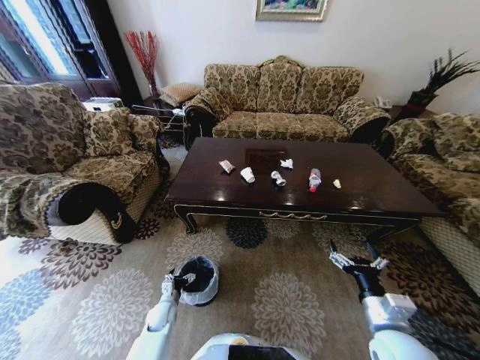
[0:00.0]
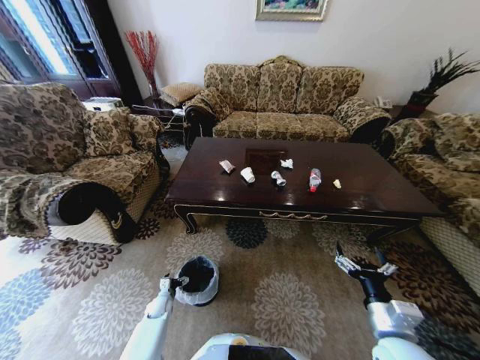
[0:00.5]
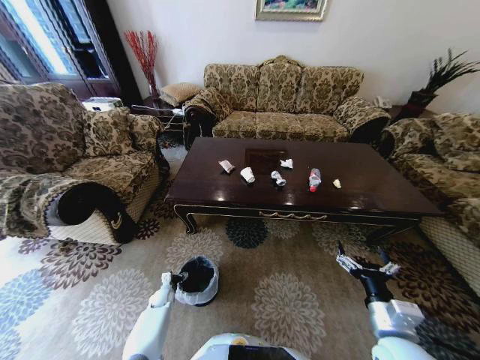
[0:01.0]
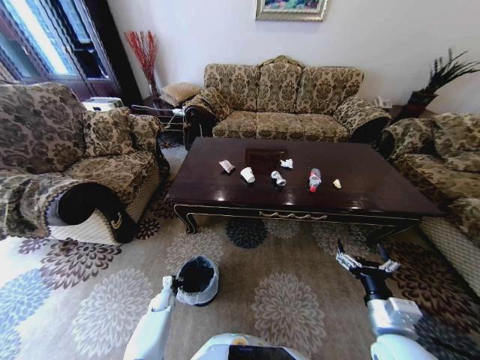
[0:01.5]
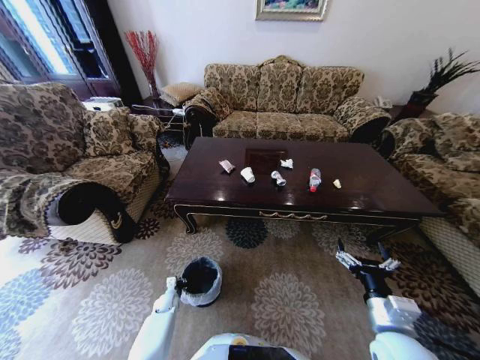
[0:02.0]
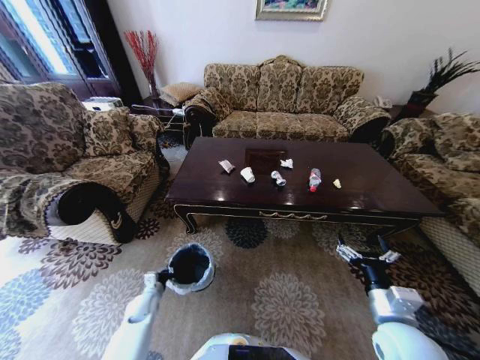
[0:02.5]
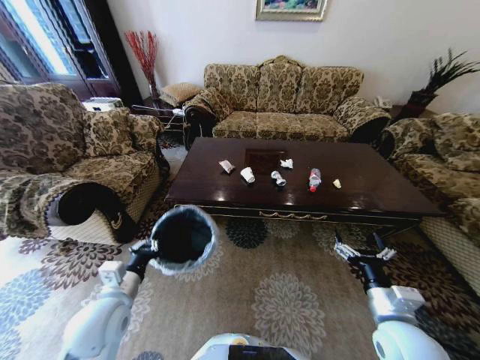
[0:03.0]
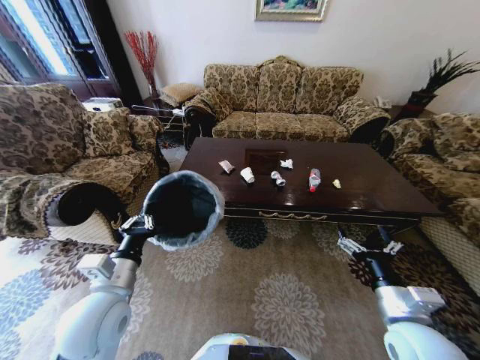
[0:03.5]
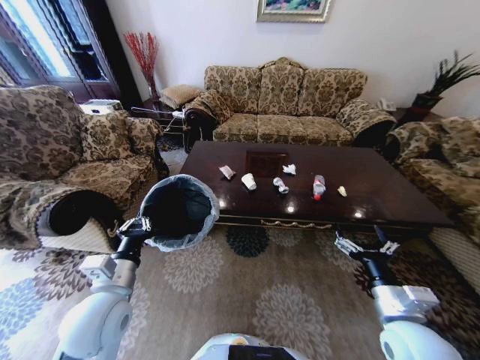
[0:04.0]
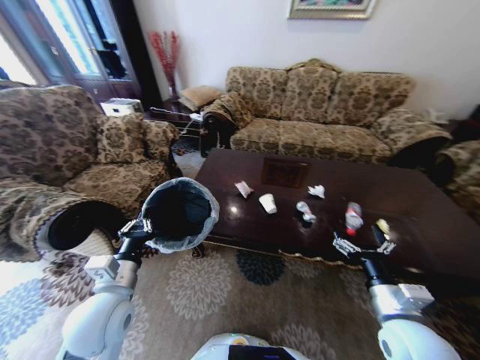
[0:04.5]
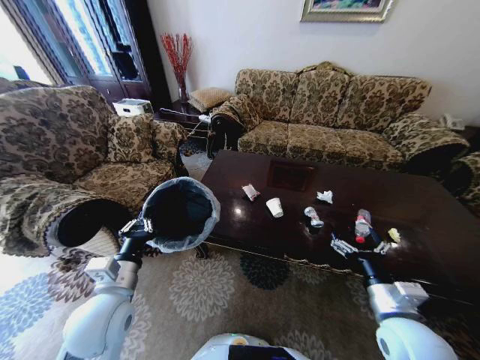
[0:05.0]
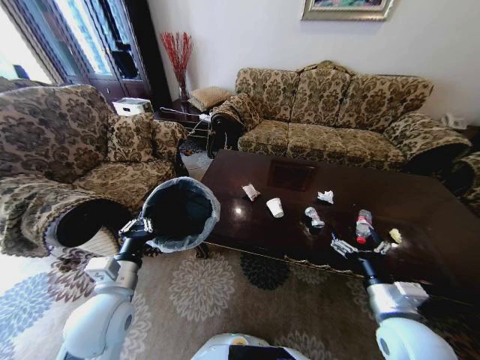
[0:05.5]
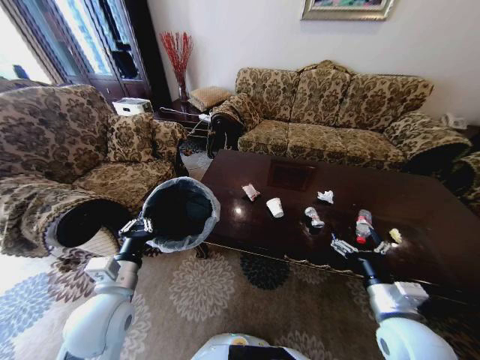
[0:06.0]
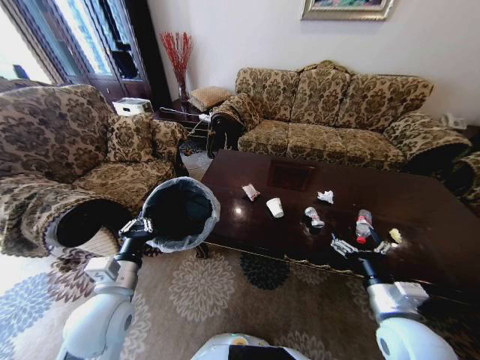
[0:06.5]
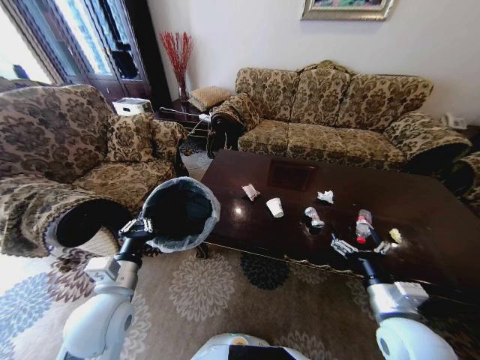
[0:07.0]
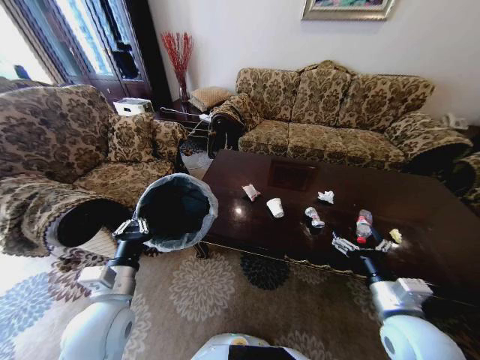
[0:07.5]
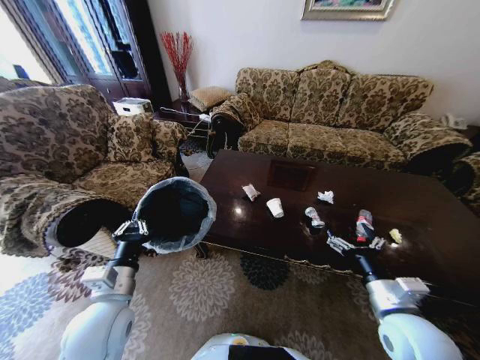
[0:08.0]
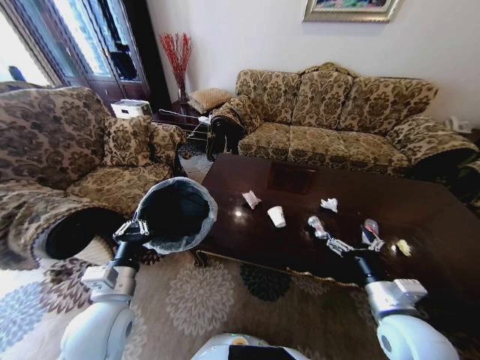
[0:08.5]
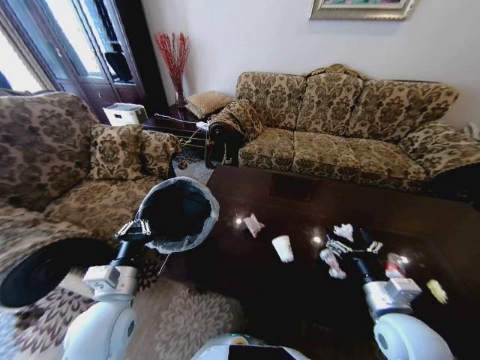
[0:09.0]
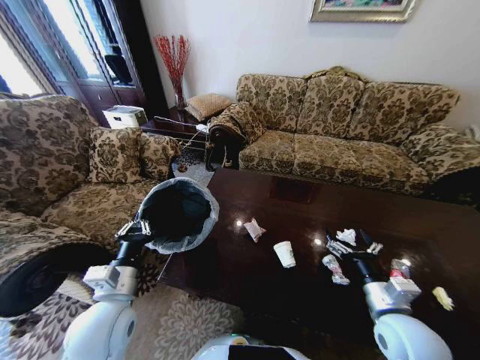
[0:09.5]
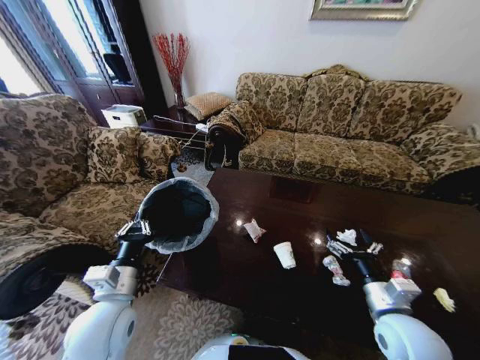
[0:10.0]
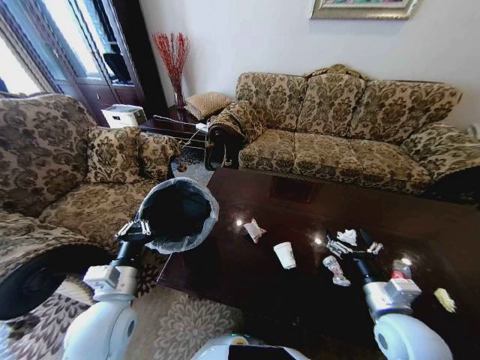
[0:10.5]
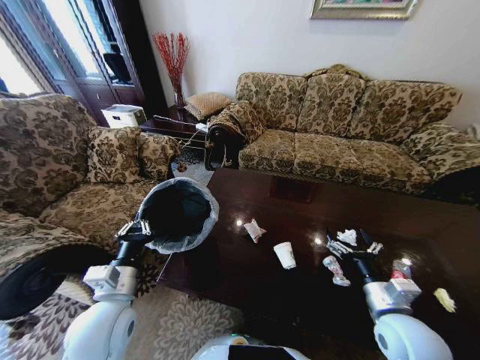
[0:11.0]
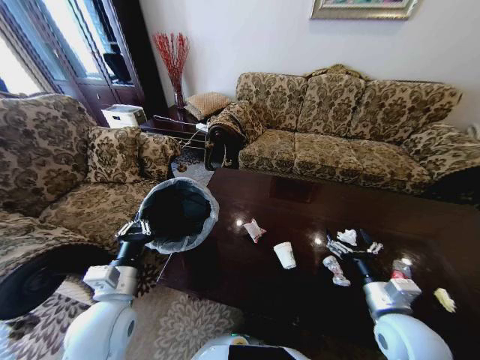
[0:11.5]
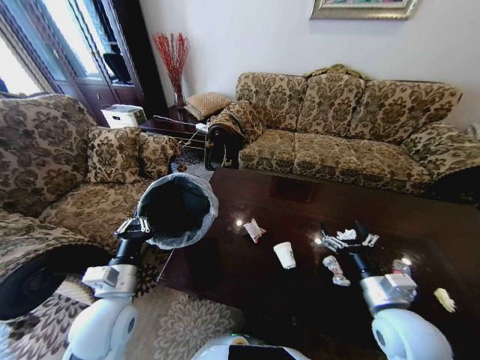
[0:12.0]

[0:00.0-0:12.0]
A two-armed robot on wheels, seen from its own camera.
Task of the whole recording: Move to the front of the table and place the trash on the table into the trash bin.
0:00.0 to 0:02.0: The left gripper goes about 5 cm downward, and closes.
0:02.0 to 0:04.0: The left gripper shifts approximately 40 cm upward.
0:06.0 to 0:08.0: There are only small adjustments of the grippers.
0:10.0 to 0:12.0: There are only small adjustments of the grippers.

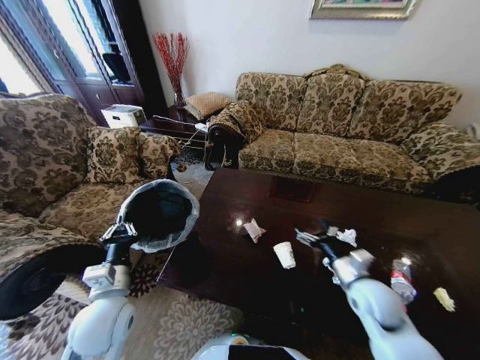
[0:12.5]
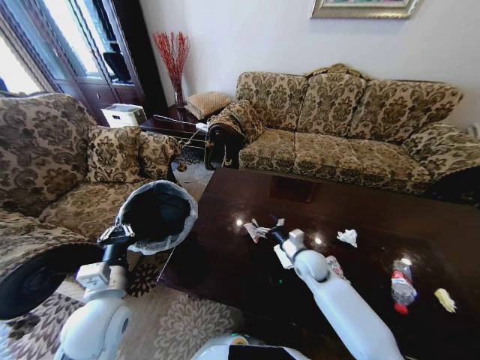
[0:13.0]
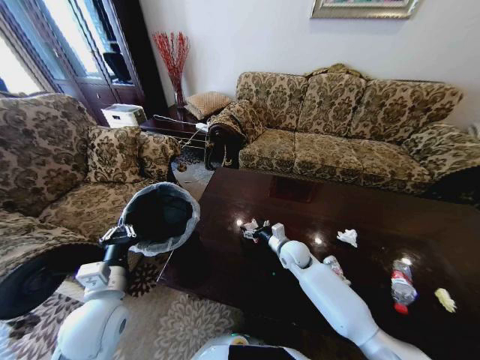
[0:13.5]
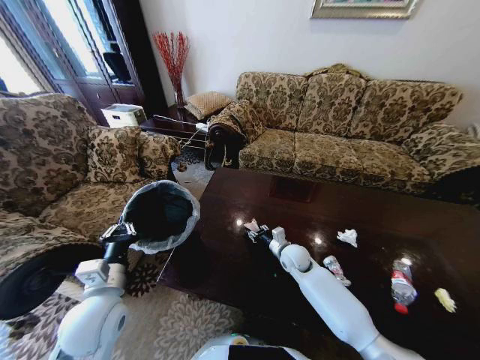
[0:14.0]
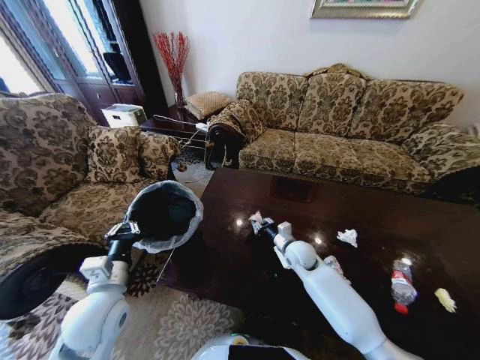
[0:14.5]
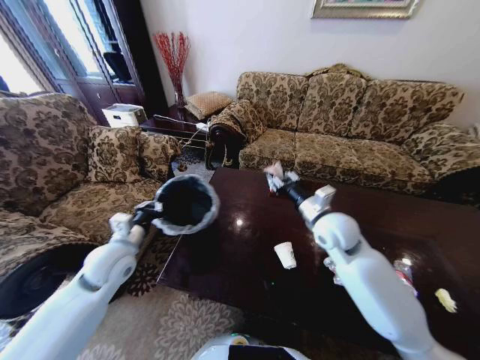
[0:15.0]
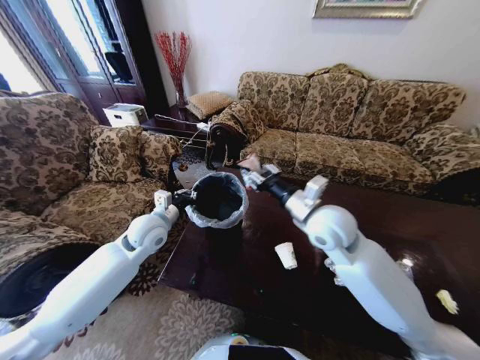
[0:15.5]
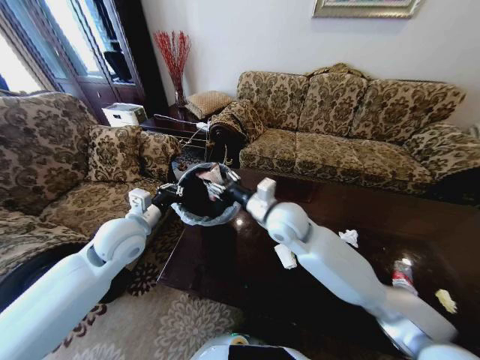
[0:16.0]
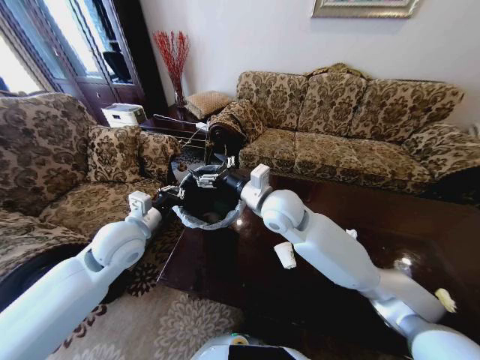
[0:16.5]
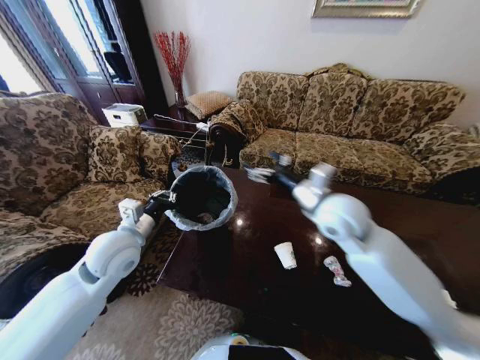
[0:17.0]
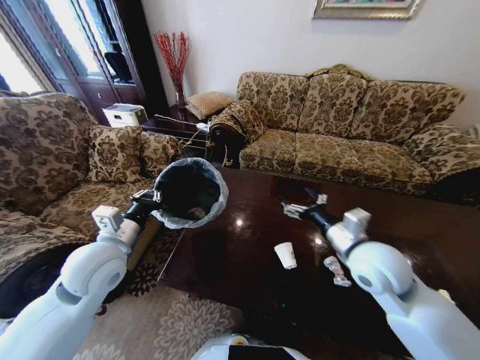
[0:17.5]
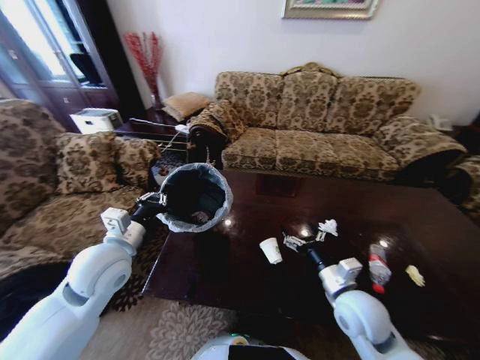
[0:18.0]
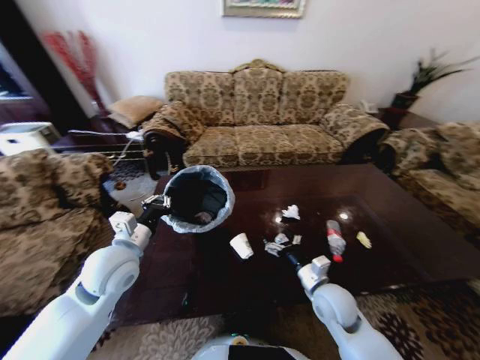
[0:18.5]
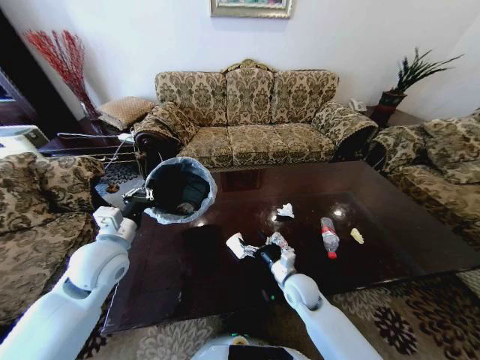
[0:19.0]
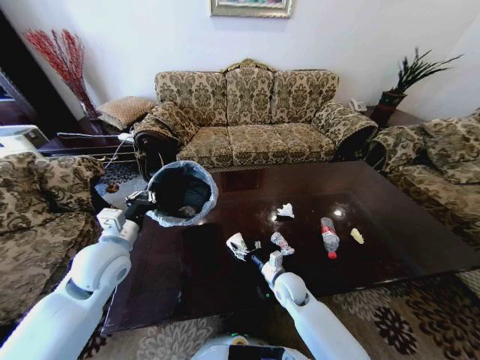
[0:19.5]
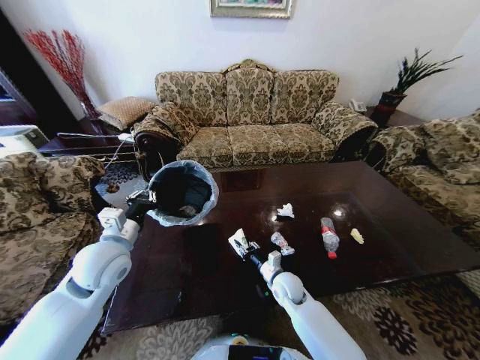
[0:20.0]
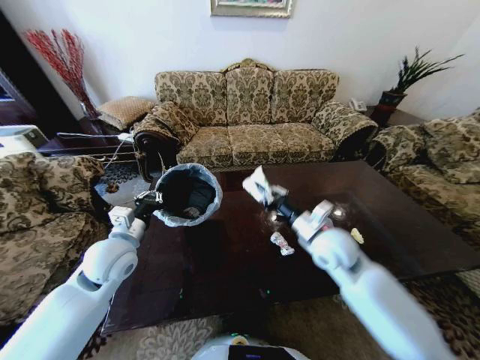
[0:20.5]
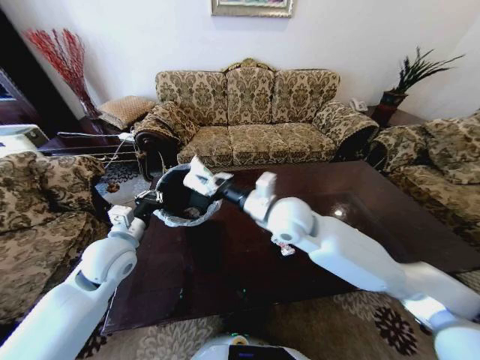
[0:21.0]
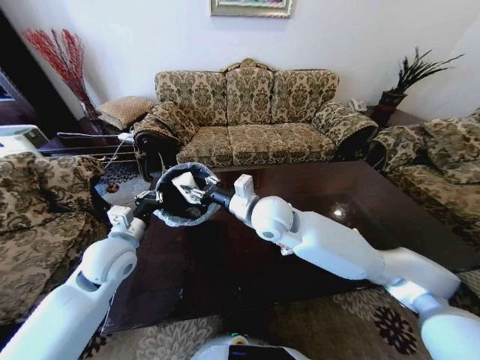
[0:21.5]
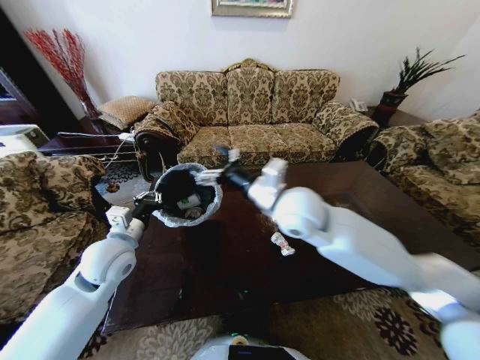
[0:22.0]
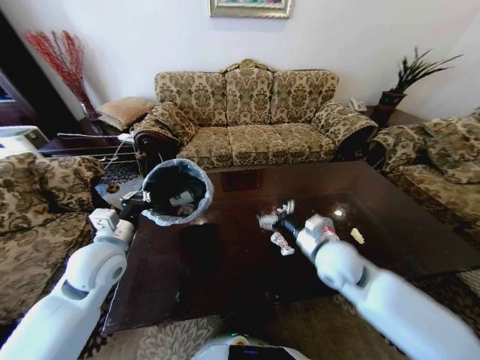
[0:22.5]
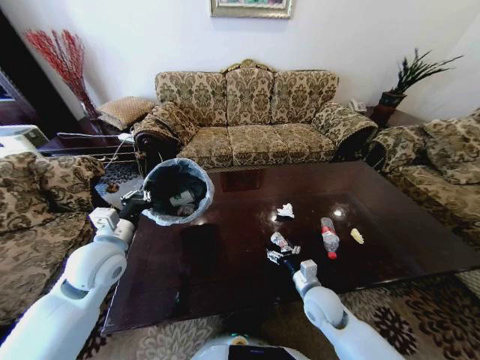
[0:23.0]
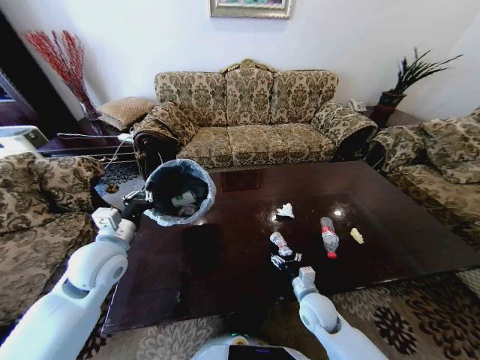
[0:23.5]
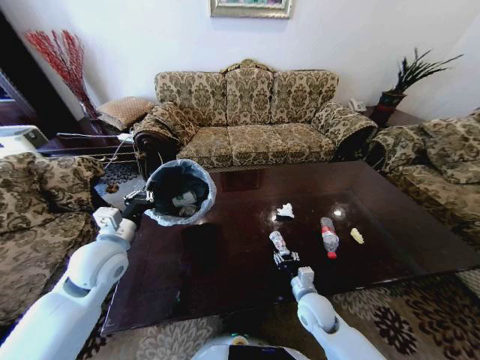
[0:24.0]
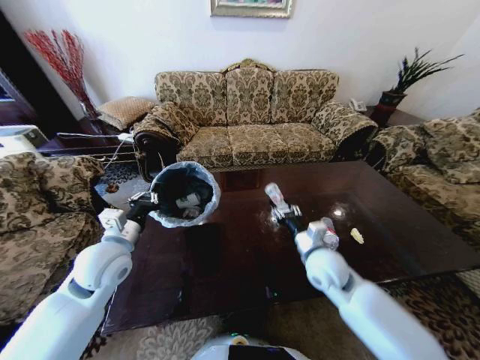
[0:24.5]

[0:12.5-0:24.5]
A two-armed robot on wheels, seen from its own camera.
Task of the whole recording: Move to the front of the table and place the trash on the table into the trash bin.
0:12.5 to 0:14.5: The right gripper heads forward, to the left and downward, covering approximately 20 cm, and closes.
0:14.5 to 0:16.5: The left gripper goes about 15 cm forward and upward; the right gripper shifts approximately 30 cm upward and to the left, and opens up.
0:16.5 to 0:18.5: The left gripper shifts by roughly 5 cm, while the right gripper is displaced downward, to the right and backward by some 30 cm.
0:18.5 to 0:20.5: The right gripper travels upward and forward by about 15 cm, and closes.
0:20.5 to 0:22.5: The right gripper moves about 15 cm to the left and comes back, and opens its fingers.
0:22.5 to 0:24.5: The right gripper reaches some 20 cm downward, then returns, and closes.

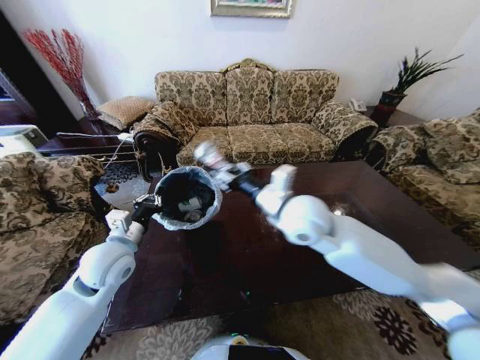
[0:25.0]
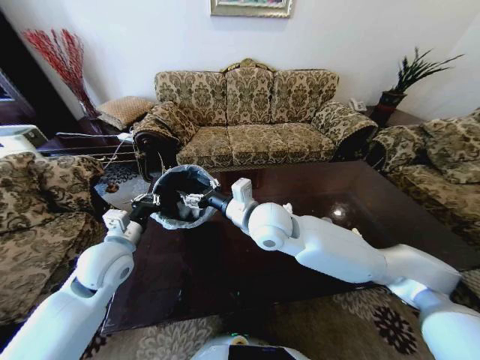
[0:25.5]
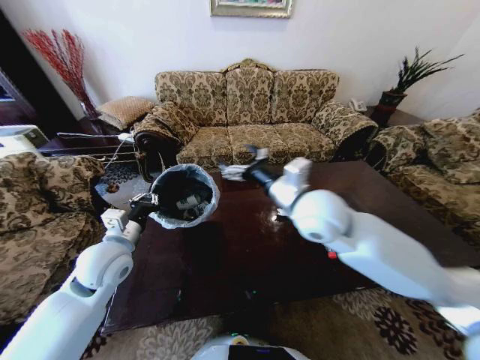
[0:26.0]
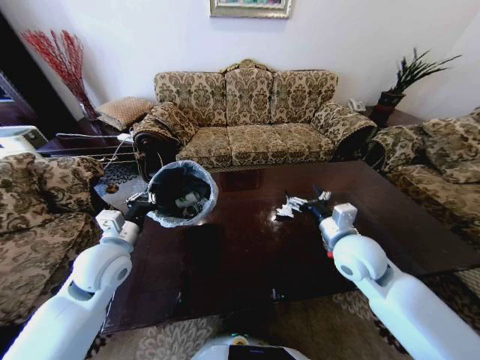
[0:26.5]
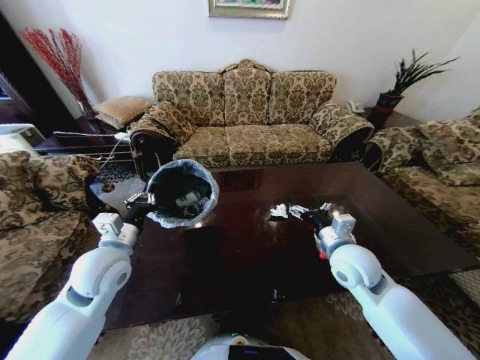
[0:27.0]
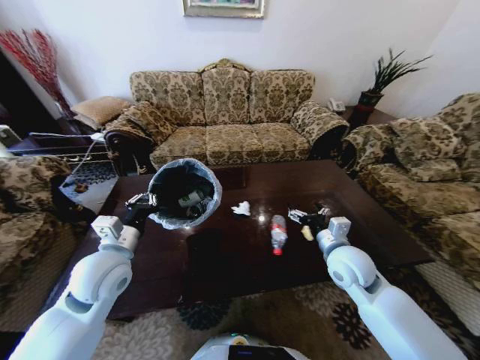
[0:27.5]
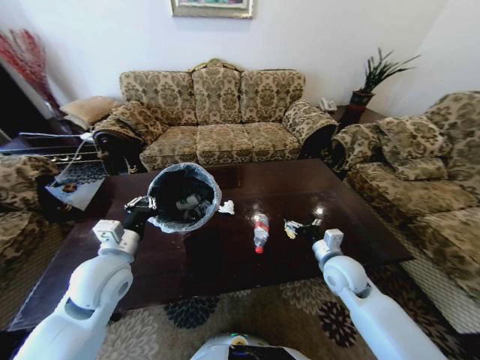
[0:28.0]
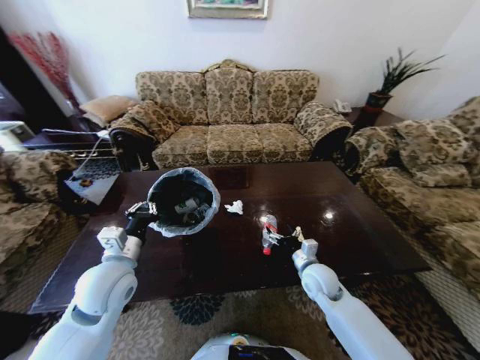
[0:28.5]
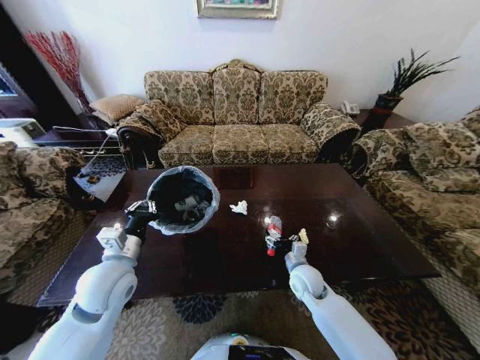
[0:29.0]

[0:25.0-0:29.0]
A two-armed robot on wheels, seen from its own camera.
Task of the whole recording: Move to the front of the table and place the trash on the table into the trash bin.
0:25.0 to 0:27.0: The right gripper is displaced to the right and downward by roughly 20 cm, and opens.
0:27.0 to 0:29.0: The right gripper shifts about 15 cm downward.
